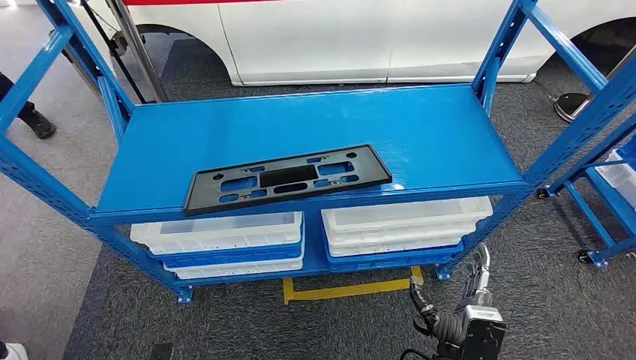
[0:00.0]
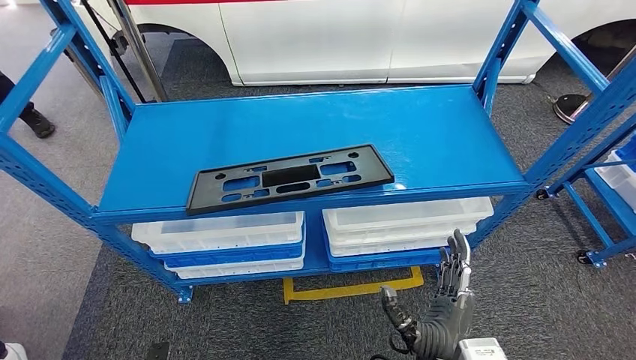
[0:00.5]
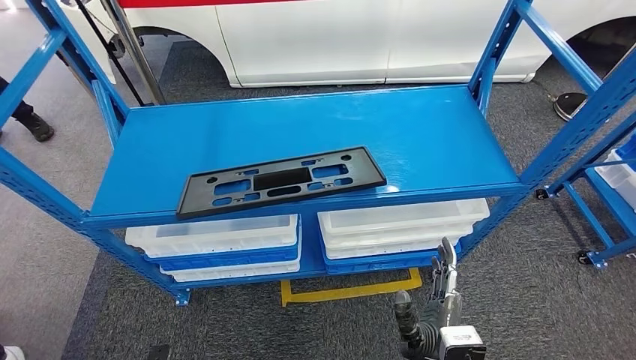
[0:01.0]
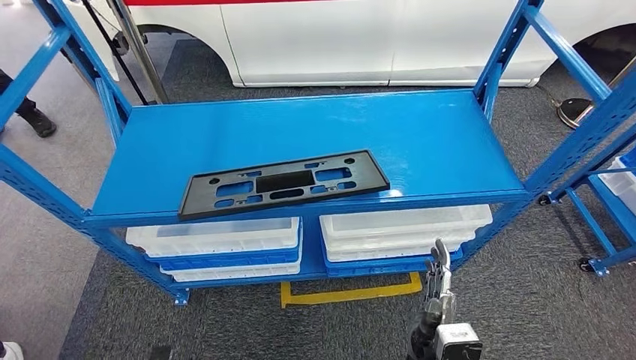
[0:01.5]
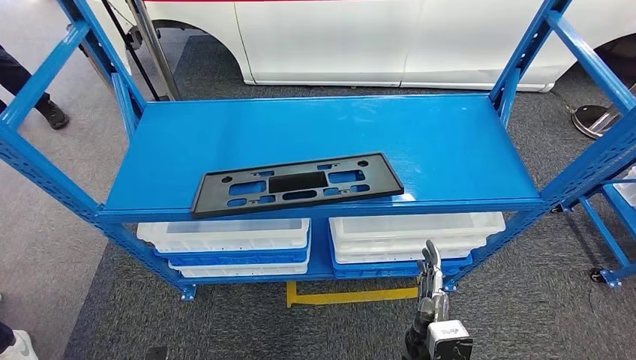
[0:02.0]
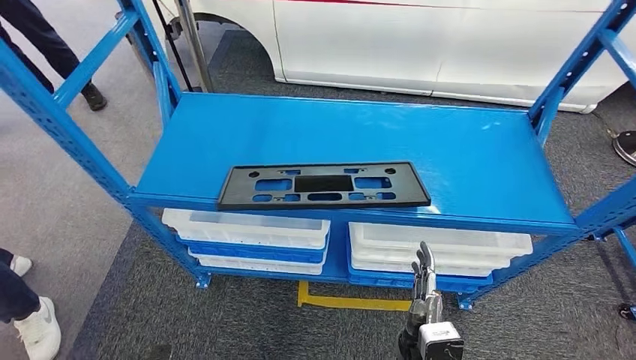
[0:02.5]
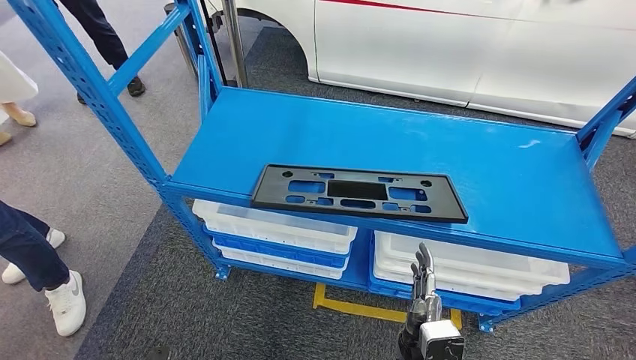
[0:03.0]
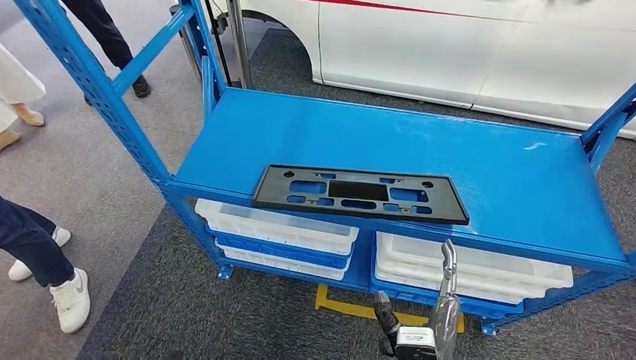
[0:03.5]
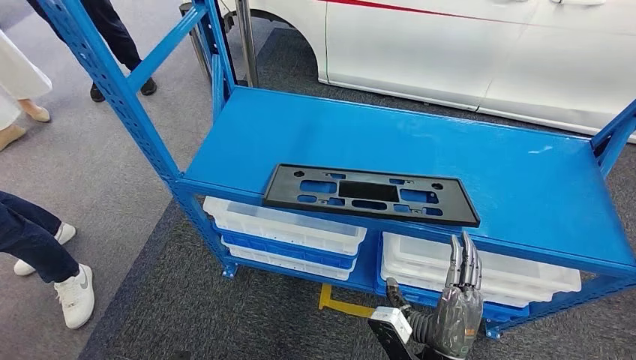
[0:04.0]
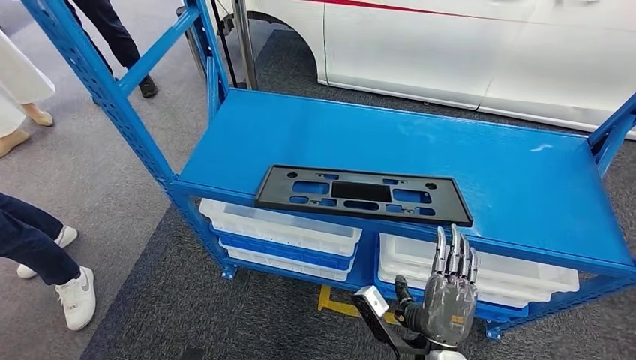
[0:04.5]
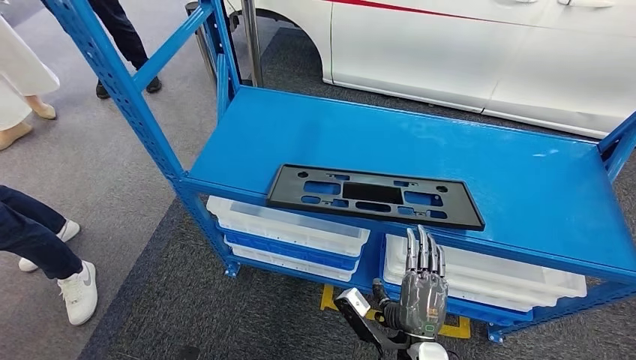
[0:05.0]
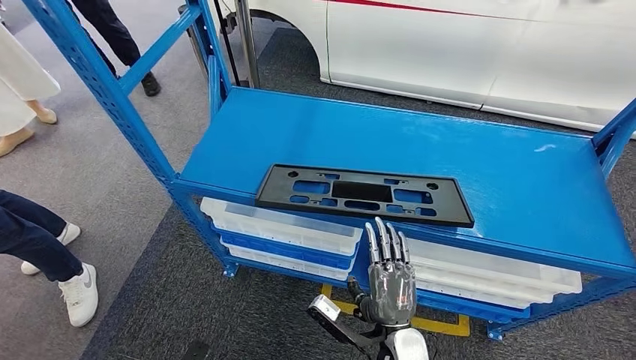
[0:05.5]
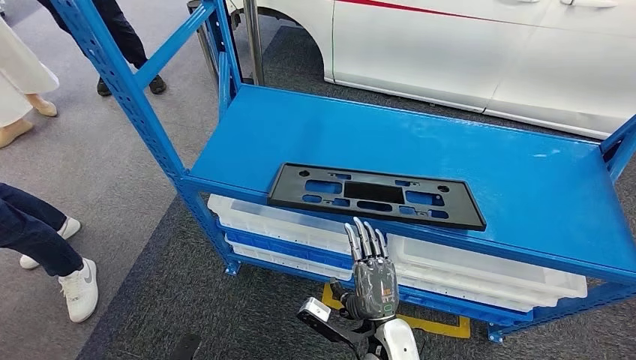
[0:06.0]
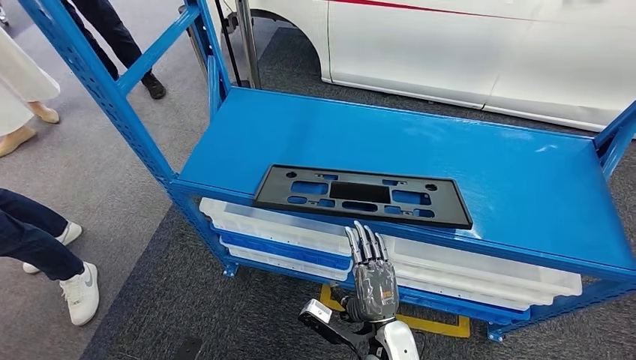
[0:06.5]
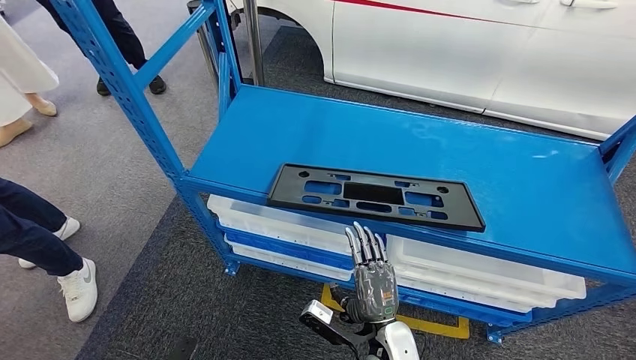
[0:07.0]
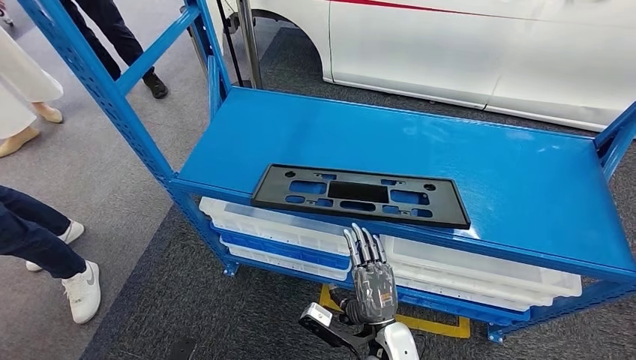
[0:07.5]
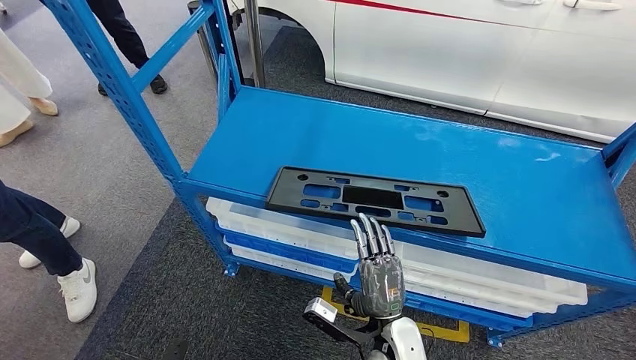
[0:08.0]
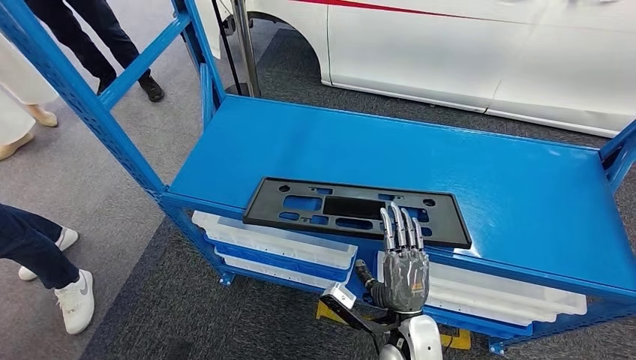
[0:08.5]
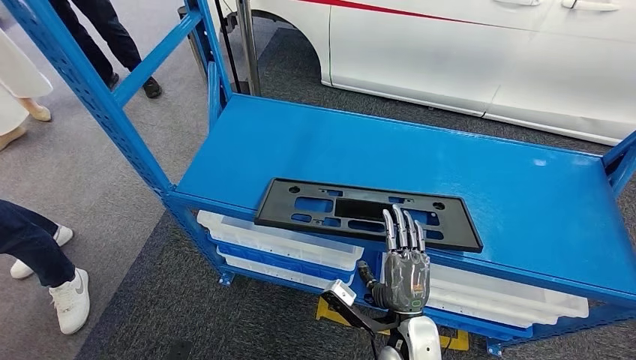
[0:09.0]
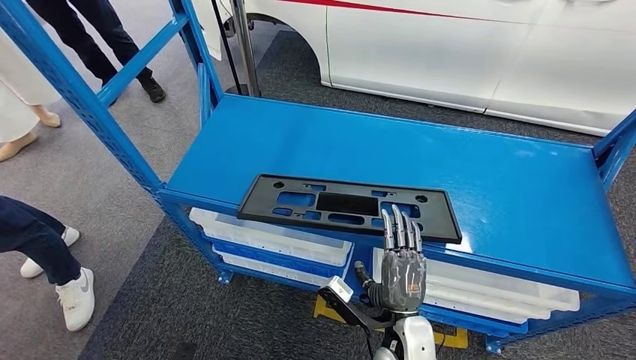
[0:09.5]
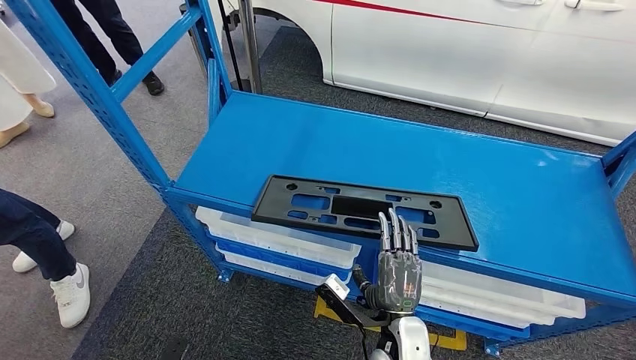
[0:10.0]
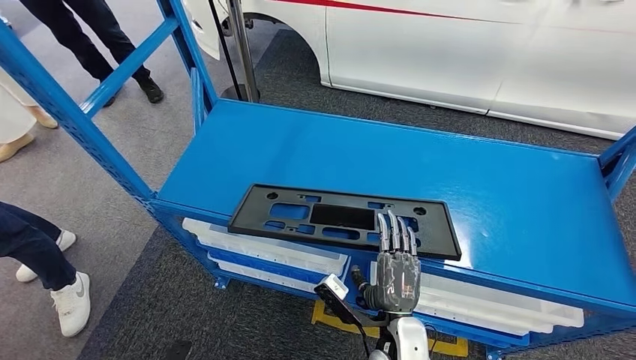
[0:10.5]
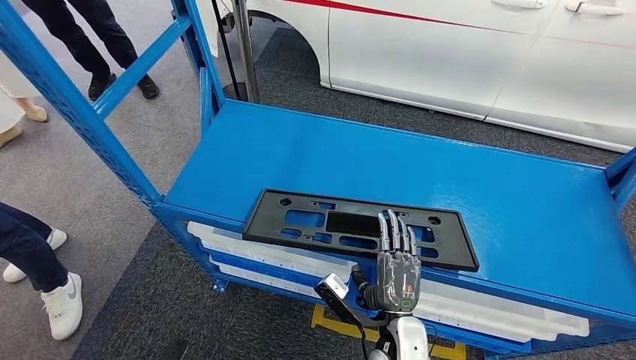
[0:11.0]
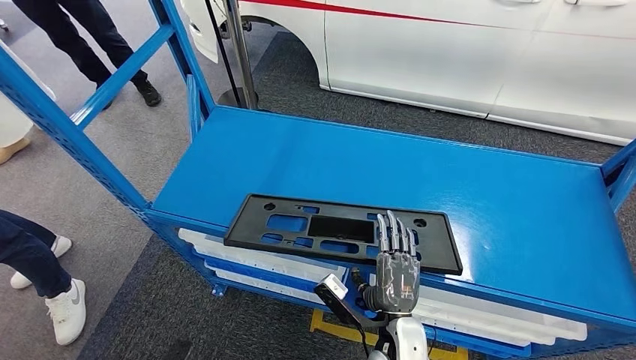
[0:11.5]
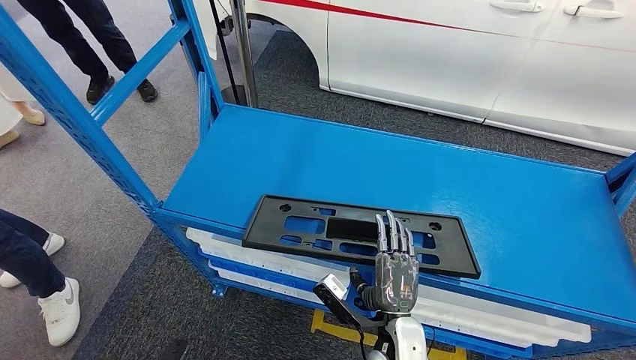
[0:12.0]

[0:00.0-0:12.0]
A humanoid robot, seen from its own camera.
0:04.0 to 0:06.0: The right hand is displaced to the left by roughly 5 cm.
0:06.0 to 0:08.0: The hands make only small movements.

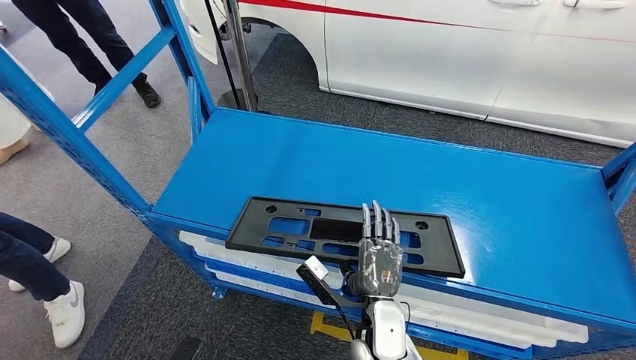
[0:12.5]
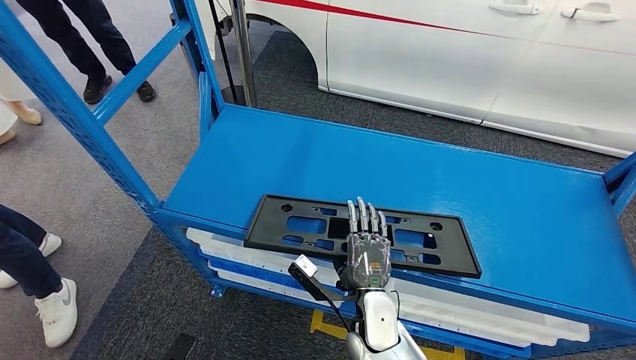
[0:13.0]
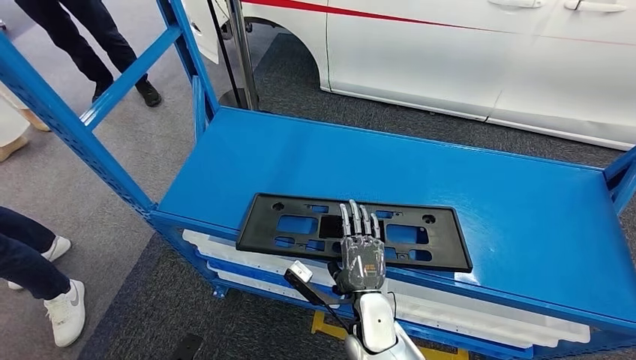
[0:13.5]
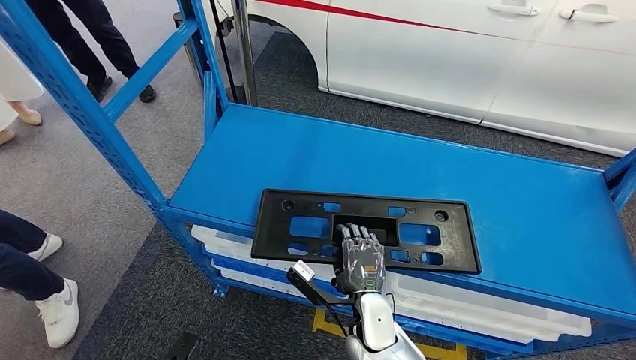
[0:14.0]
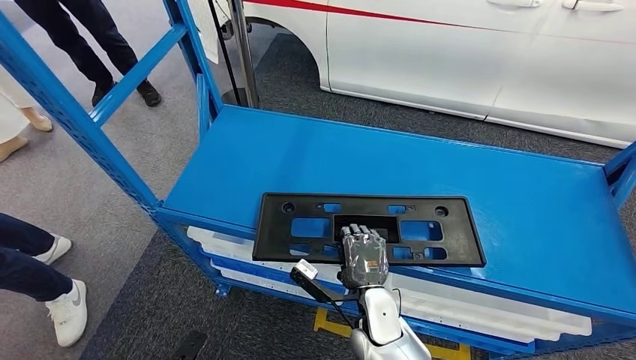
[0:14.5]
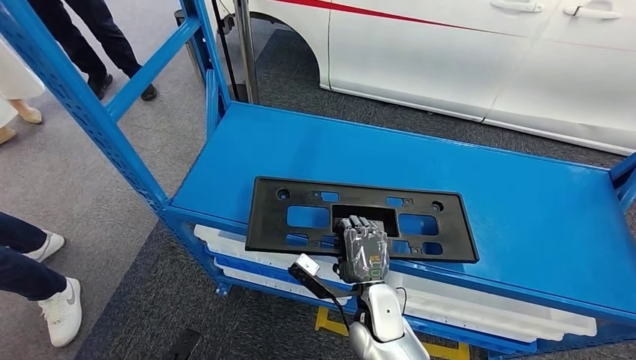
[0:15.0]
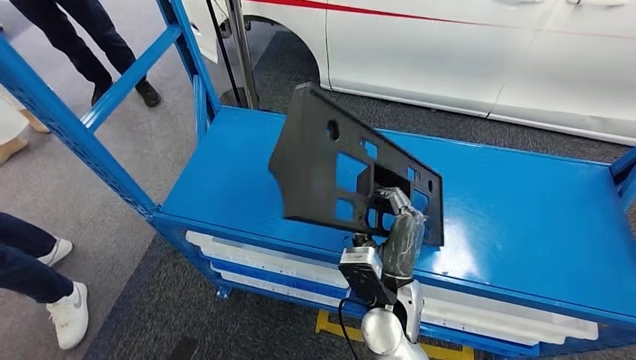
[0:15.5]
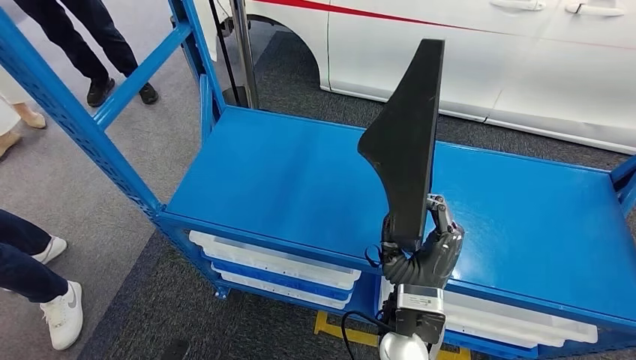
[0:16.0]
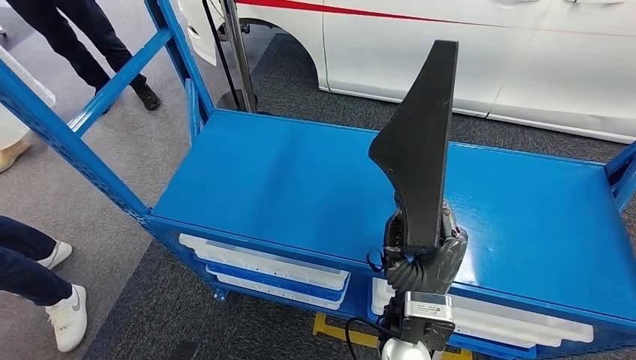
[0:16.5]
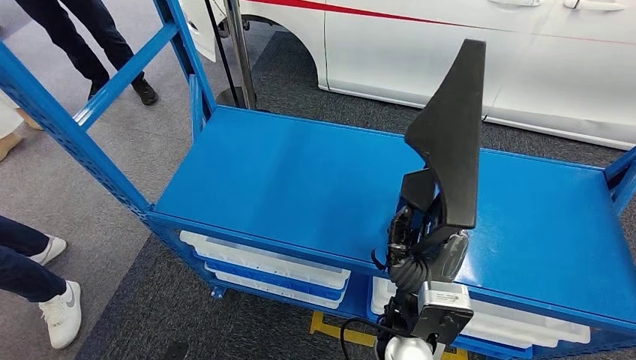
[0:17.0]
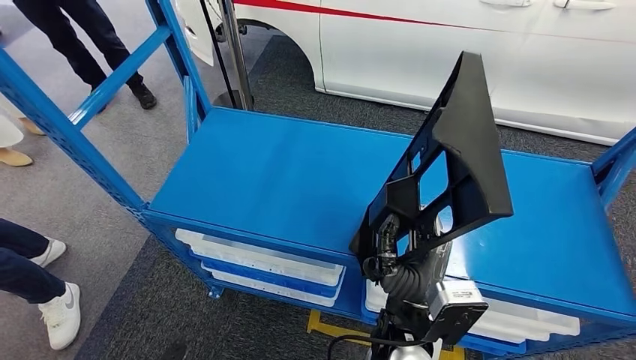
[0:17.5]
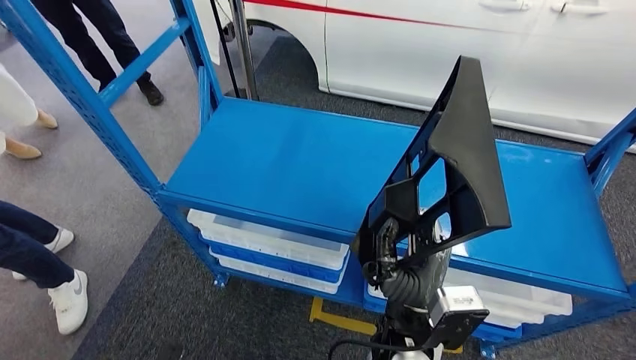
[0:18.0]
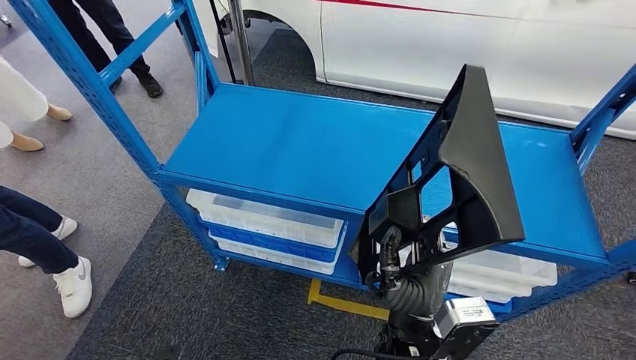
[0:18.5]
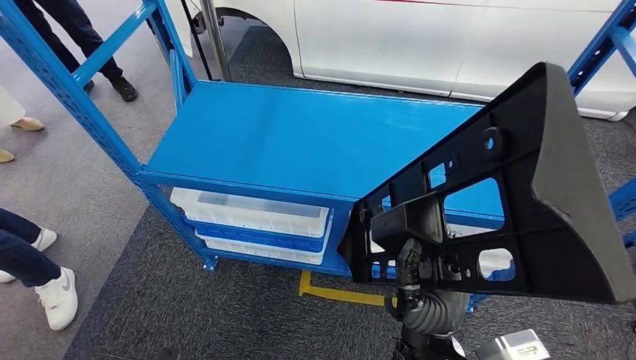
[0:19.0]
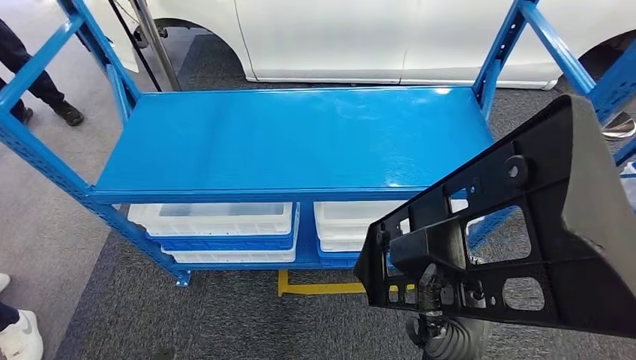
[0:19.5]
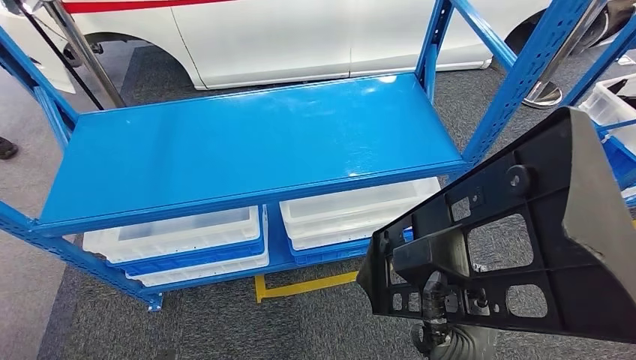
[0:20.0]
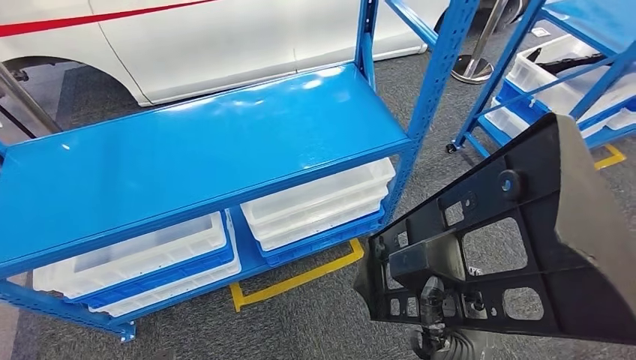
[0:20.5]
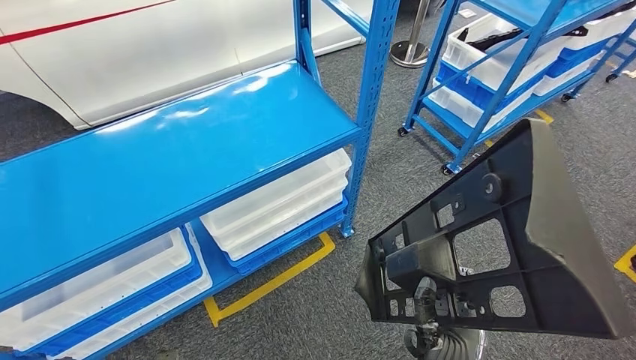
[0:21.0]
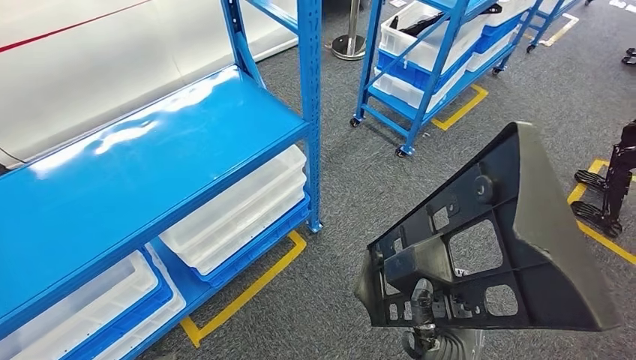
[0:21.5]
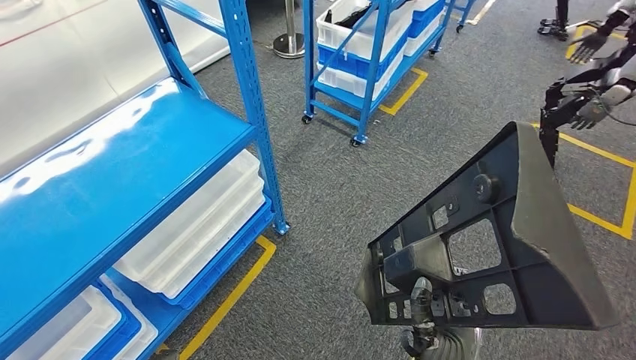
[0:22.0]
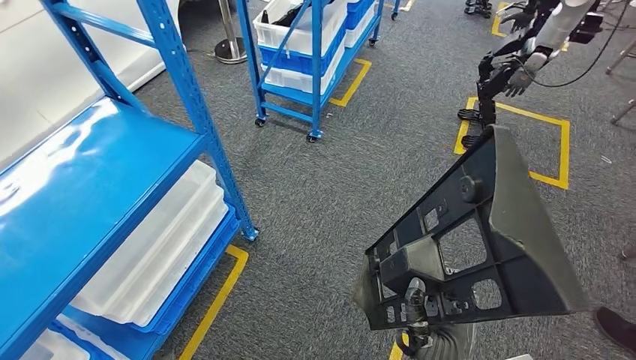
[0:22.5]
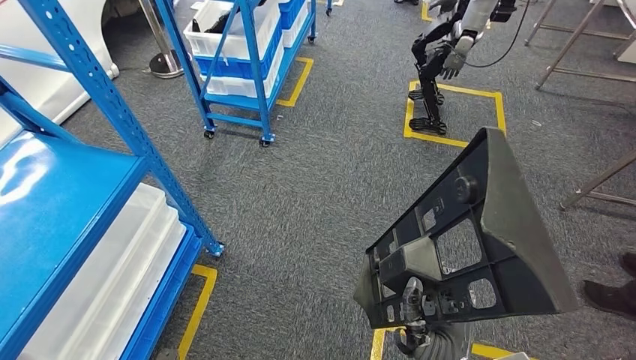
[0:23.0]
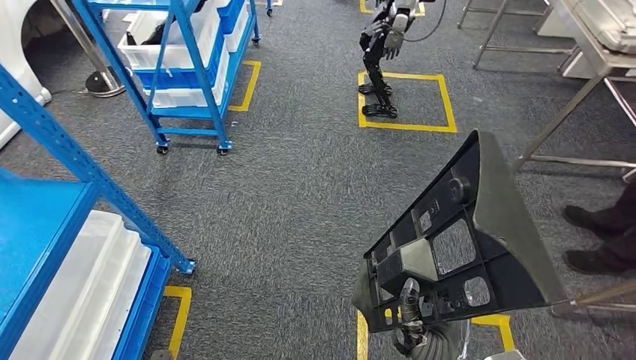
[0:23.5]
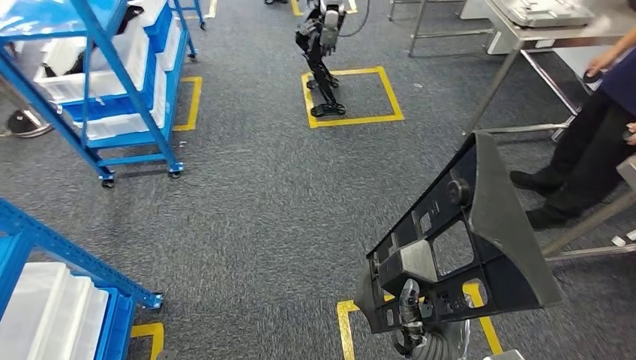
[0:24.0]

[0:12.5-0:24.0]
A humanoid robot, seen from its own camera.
Step, 0:12.5 to 0:15.0: Pick up the large parts from the shelf.
